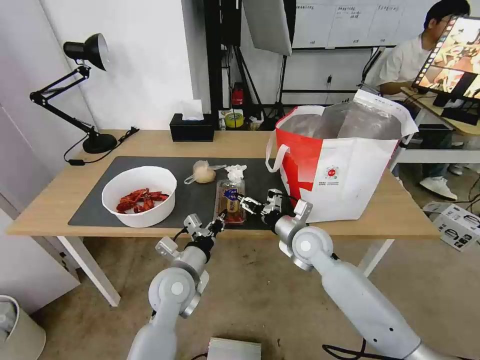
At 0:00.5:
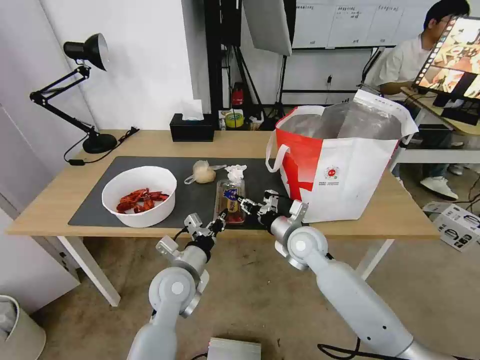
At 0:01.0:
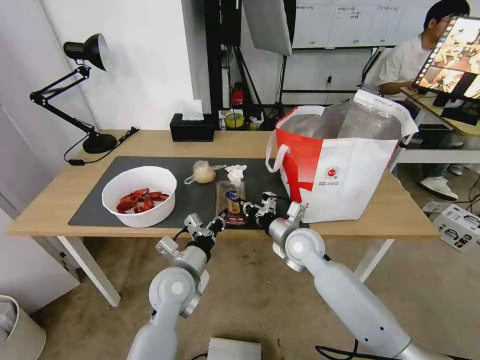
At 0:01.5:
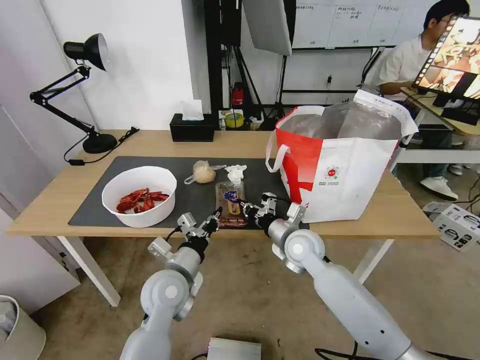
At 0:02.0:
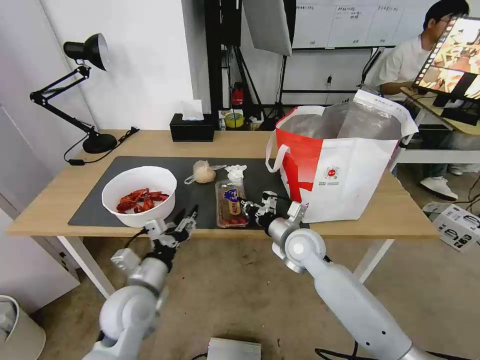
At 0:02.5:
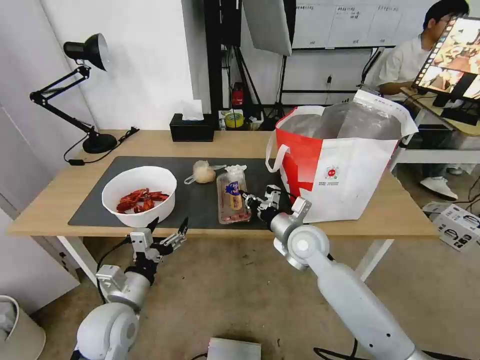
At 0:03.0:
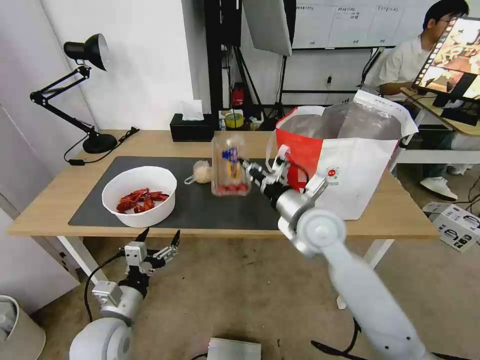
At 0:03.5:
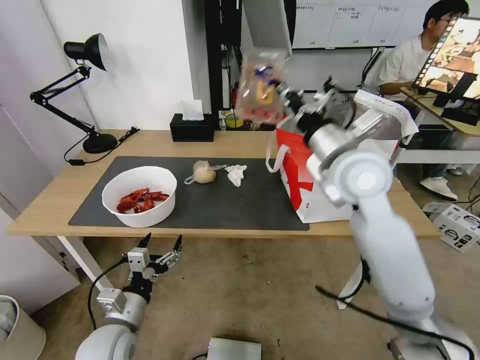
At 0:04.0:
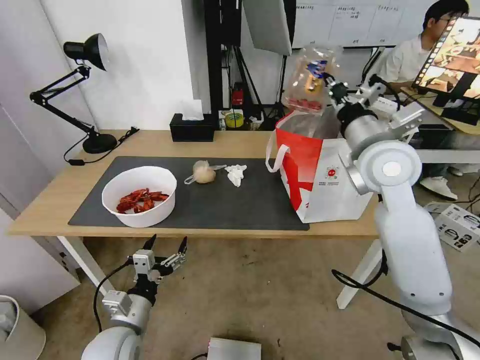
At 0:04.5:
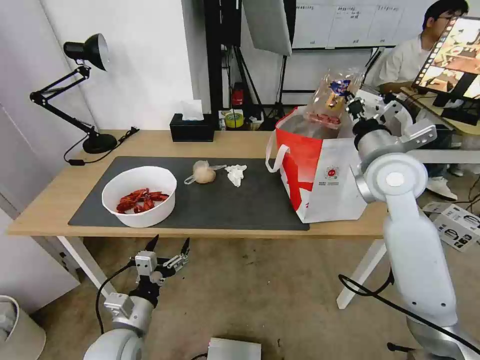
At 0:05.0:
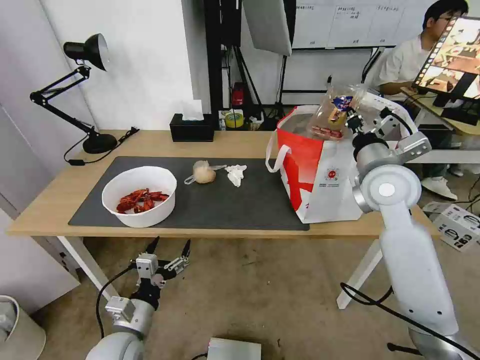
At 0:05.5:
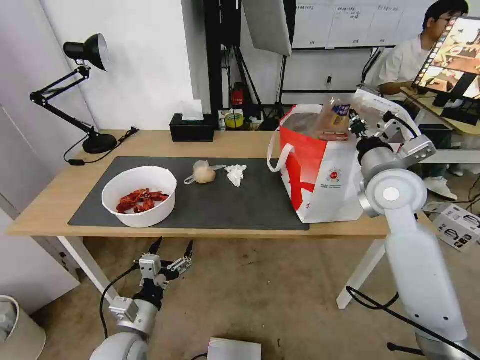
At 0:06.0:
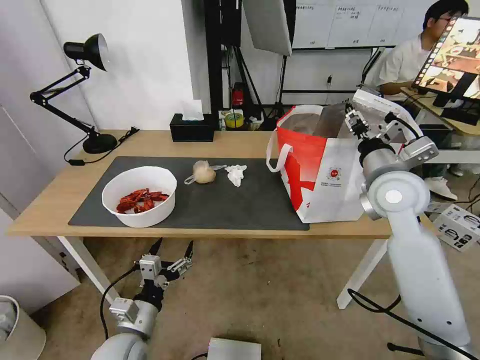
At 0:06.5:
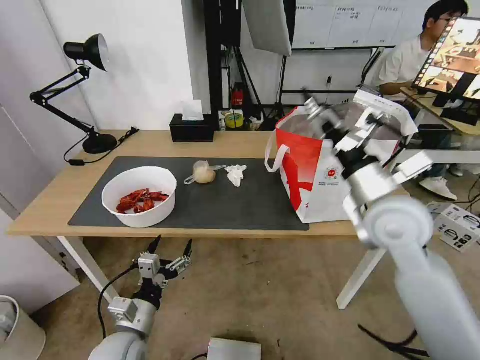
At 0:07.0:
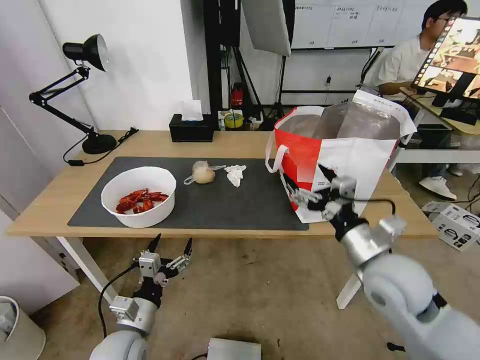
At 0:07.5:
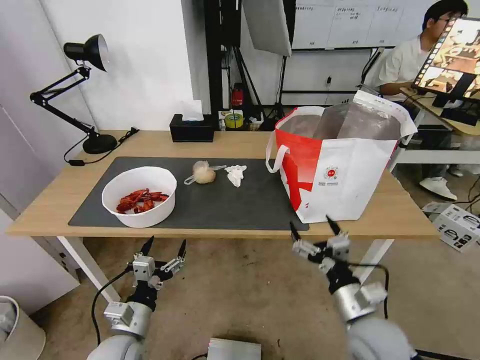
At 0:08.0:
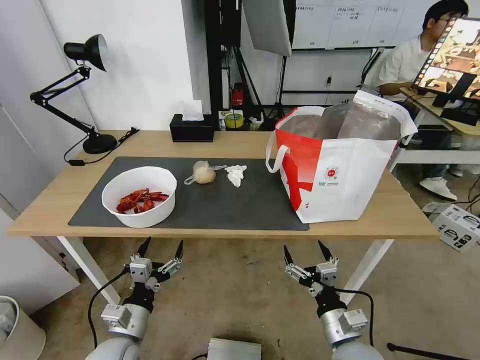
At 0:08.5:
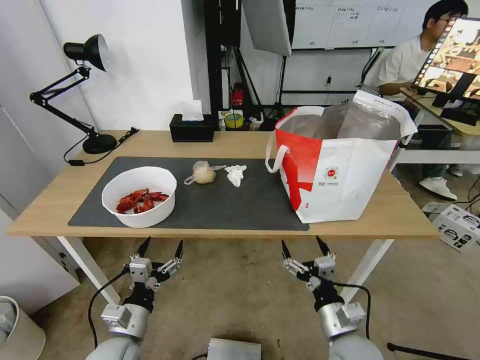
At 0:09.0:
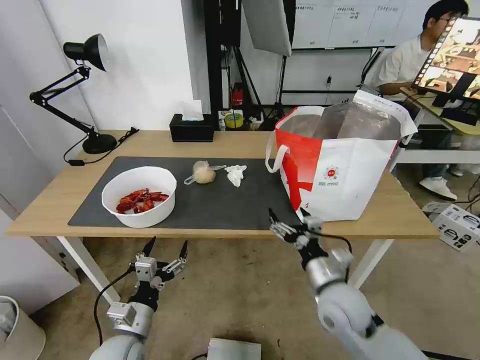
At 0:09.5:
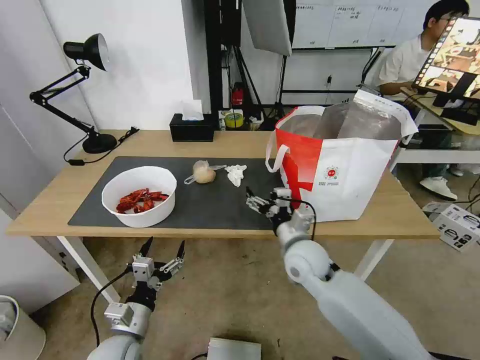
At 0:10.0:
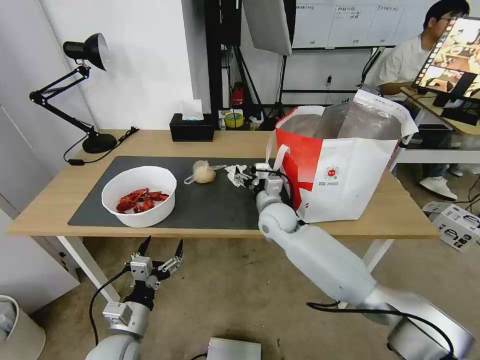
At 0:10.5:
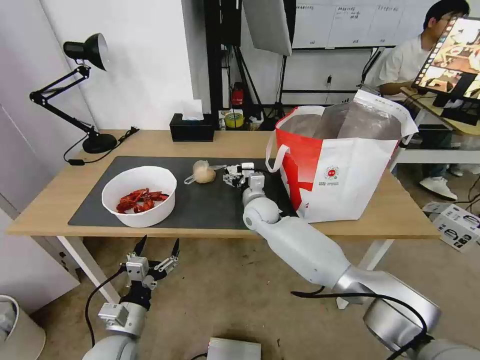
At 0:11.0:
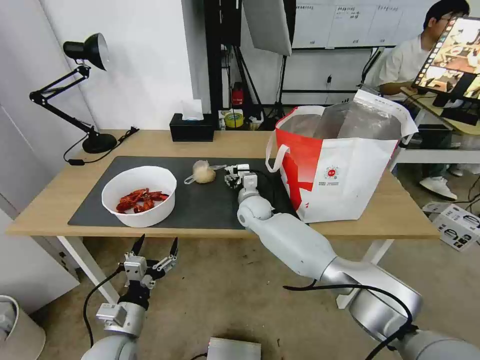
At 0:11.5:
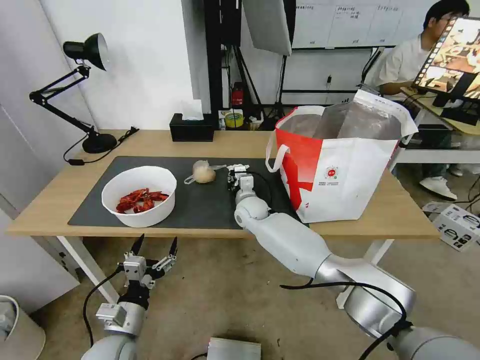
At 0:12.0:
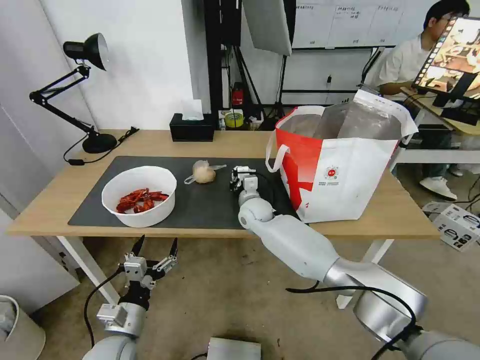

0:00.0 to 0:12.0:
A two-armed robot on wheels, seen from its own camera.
Task of the whole recording: Pick up the trash from the table and place it into the takeout bag.
0:00.0 to 0:02.0: The left gripper goes roughly 5 cm to the left, and opens up. Meanwhile the right gripper closes.
0:02.0 to 0:04.0: The left gripper moves backward and downward, approximately 10 cm, and opens; the right gripper goes some 25 cm upward.
0:04.0 to 0:06.0: The right gripper heads downward, covering some 5 cm, and opens.
0:06.0 to 0:08.0: The right gripper heads downward and backward, covering approximately 35 cm.
0:08.0 to 0:10.0: The right gripper is displaced forward and to the left by about 35 cm.
0:10.0 to 0:12.0: The right gripper is displaced forward and to the left by roughly 10 cm, and closes its fingers.

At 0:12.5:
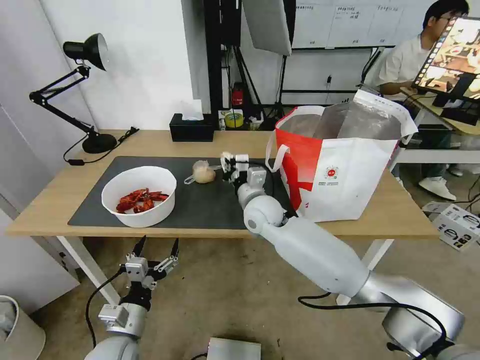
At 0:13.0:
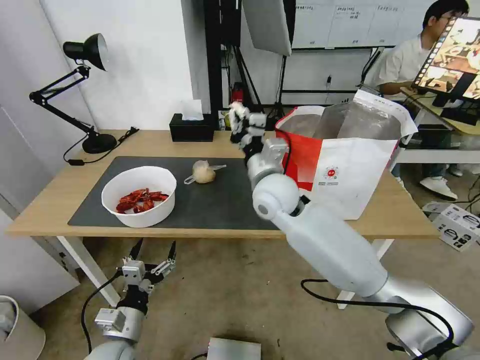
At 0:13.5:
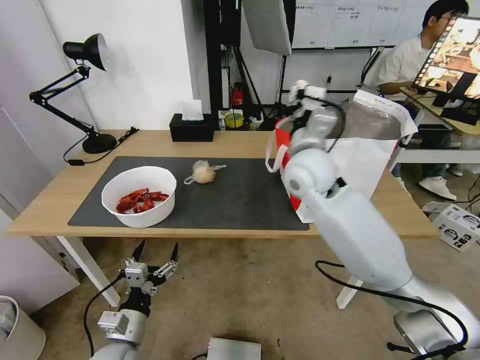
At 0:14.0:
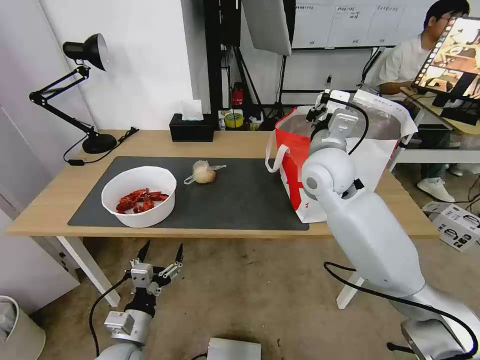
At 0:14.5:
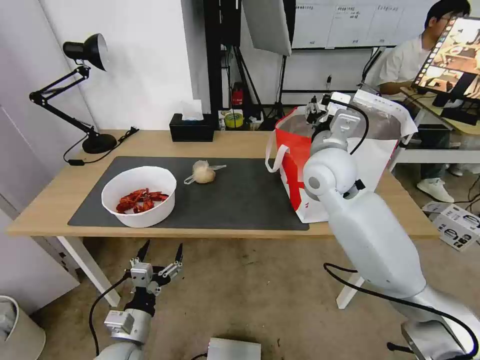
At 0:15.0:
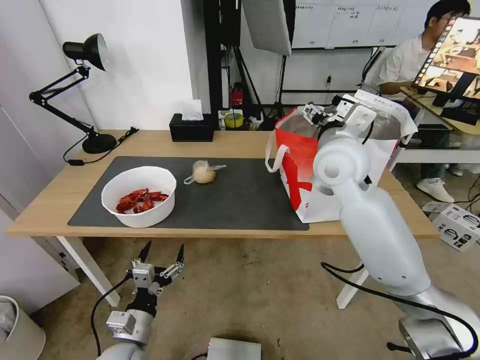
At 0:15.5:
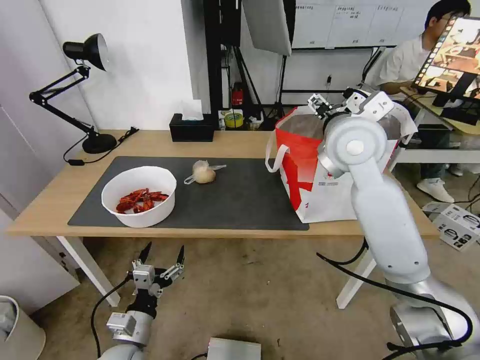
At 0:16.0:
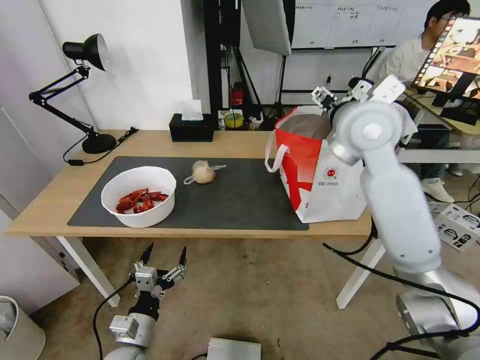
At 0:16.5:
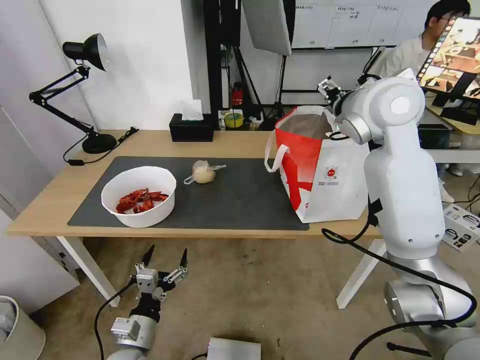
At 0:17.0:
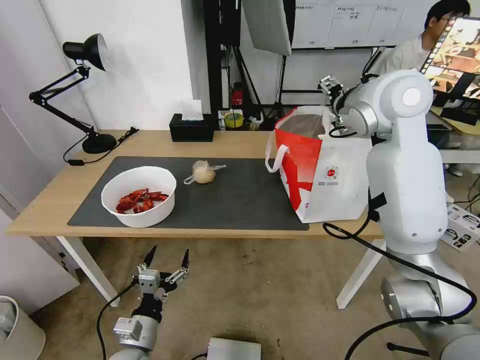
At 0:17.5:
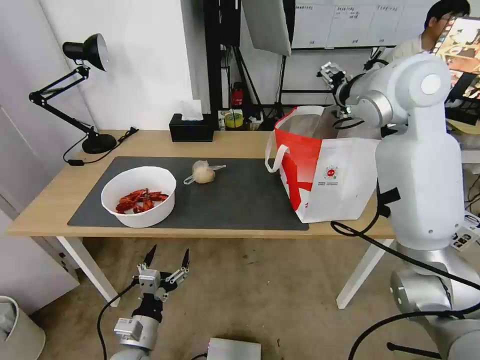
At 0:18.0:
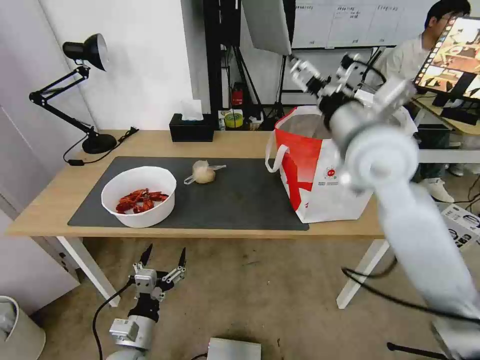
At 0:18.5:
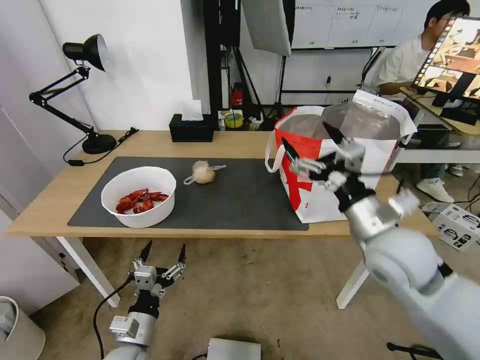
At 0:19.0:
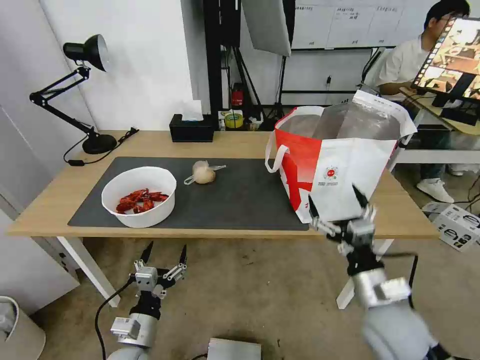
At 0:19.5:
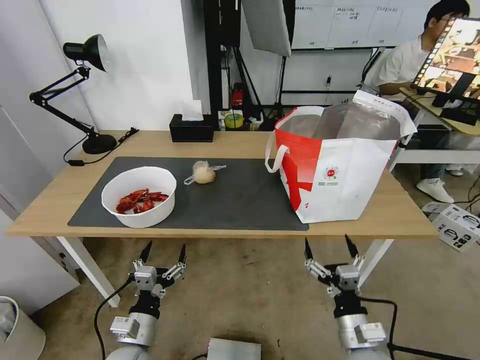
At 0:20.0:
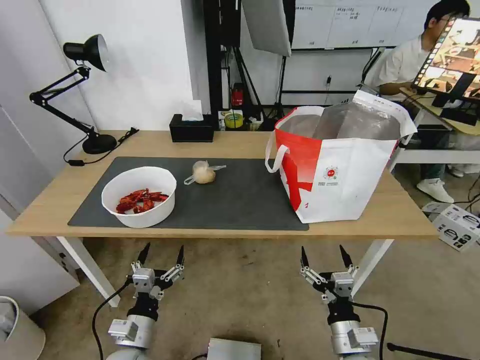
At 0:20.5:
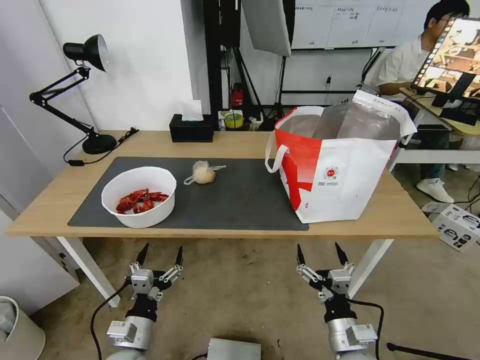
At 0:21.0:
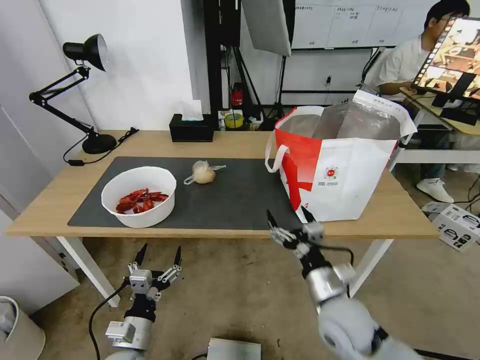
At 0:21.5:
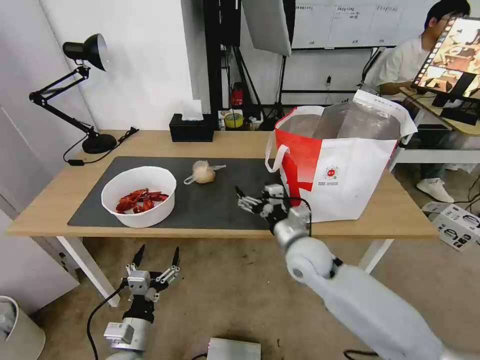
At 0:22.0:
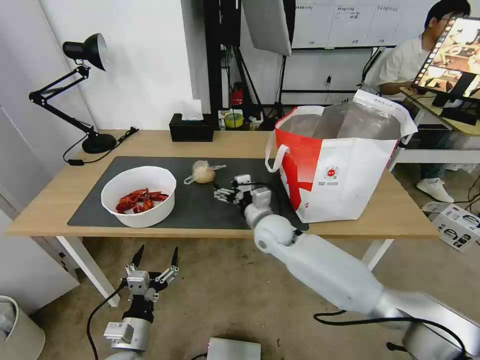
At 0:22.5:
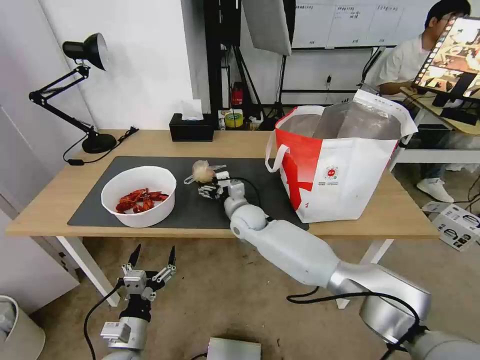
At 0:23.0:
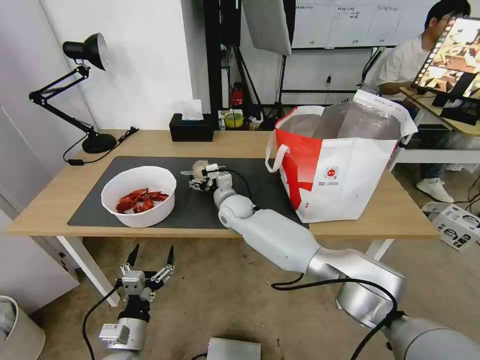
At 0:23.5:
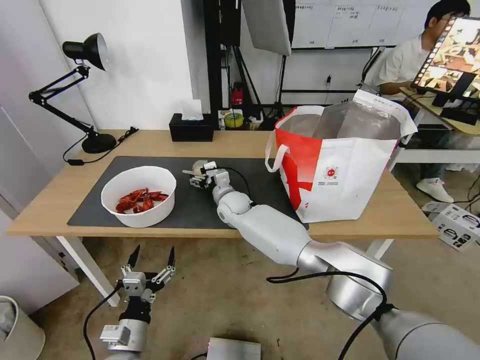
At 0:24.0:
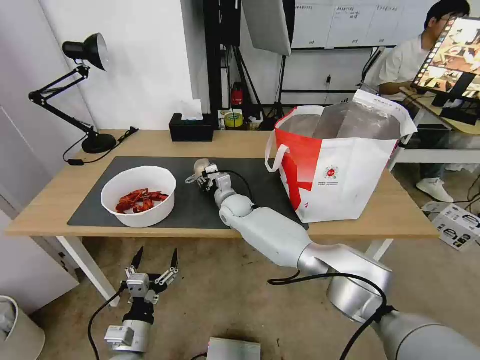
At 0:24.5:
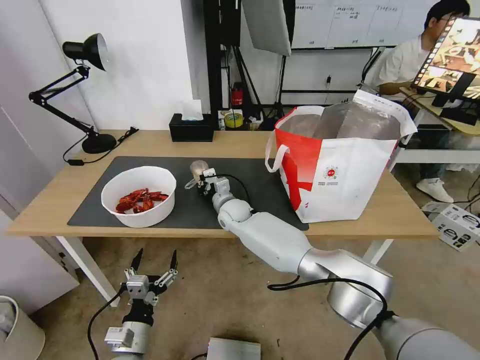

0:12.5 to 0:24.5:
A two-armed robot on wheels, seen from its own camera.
Task of the whole recording: Pick up the trash from the table and place it into the takeout bag.
0:12.5 to 0:14.5: The right gripper is displaced upward and to the right by roughly 20 cm, and opens.
0:14.5 to 0:16.5: The right gripper moves upward and to the right, about 15 cm, and opens.
0:16.5 to 0:18.5: The right gripper heads downward and backward, covering some 25 cm.
0:18.5 to 0:20.5: The right gripper travels downward and backward by about 25 cm.
0:20.5 to 0:22.5: The right gripper shifts about 40 cm forward and to the left.
0:22.5 to 0:24.5: The right gripper shifts by about 5 cm, and closes up.

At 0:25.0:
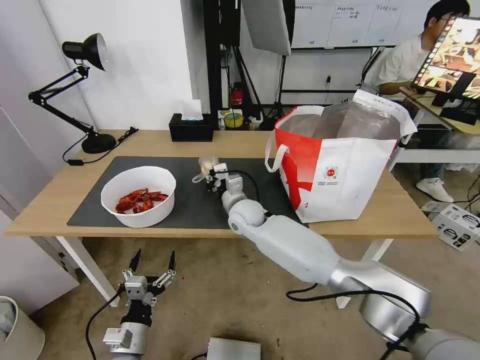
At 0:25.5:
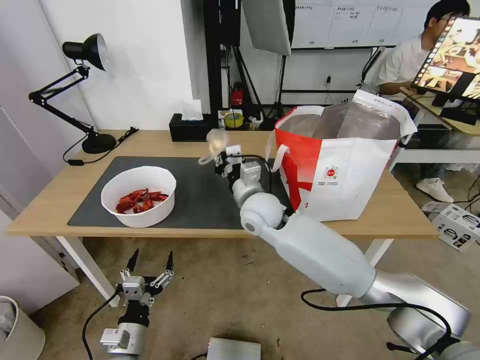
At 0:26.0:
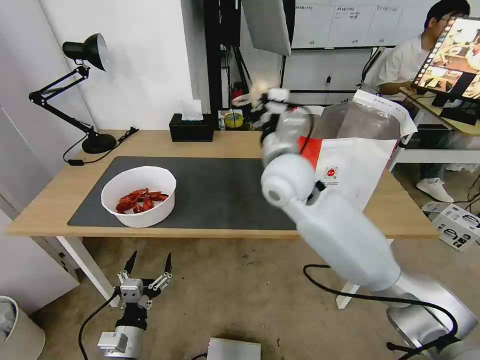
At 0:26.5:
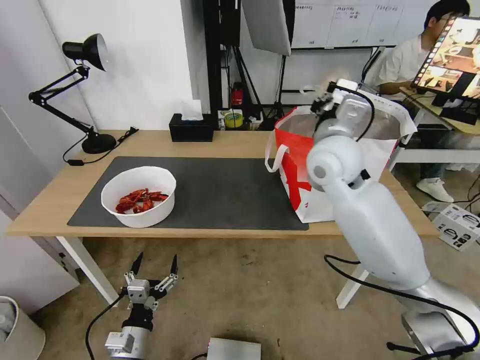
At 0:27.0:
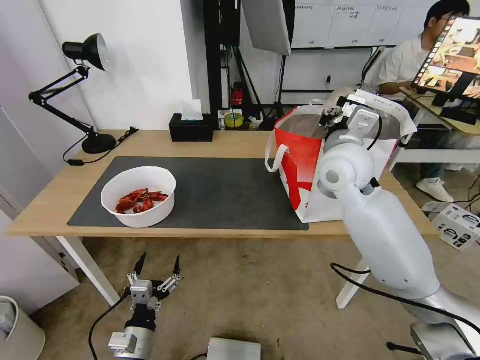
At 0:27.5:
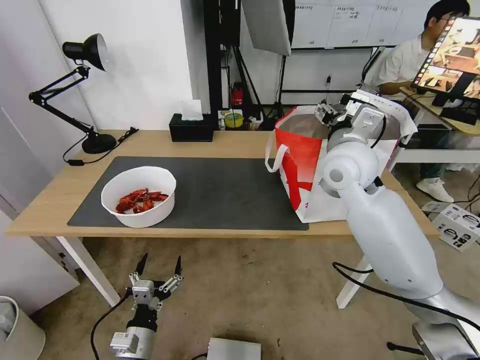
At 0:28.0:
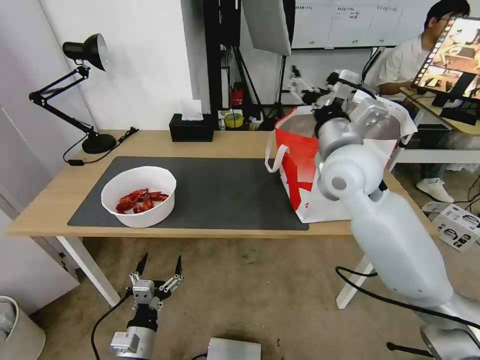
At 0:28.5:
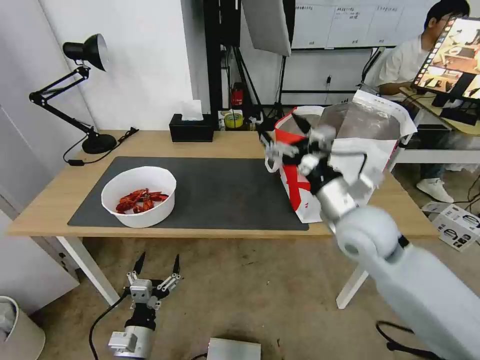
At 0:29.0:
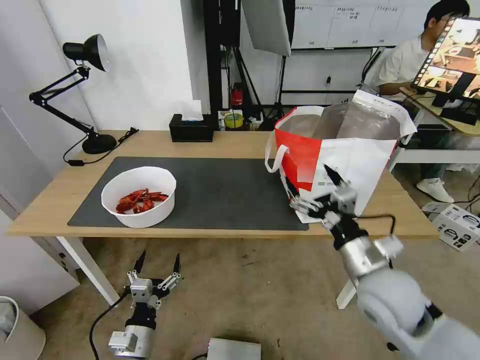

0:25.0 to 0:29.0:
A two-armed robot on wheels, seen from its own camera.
Task of the whole recording: Pick up the trash from the table and place it into the takeout bag.
0:25.0 to 0:27.0: The right gripper travels upward and to the right by roughly 25 cm.
0:27.0 to 0:29.0: The right gripper is displaced backward and downward by some 25 cm, and opens.
